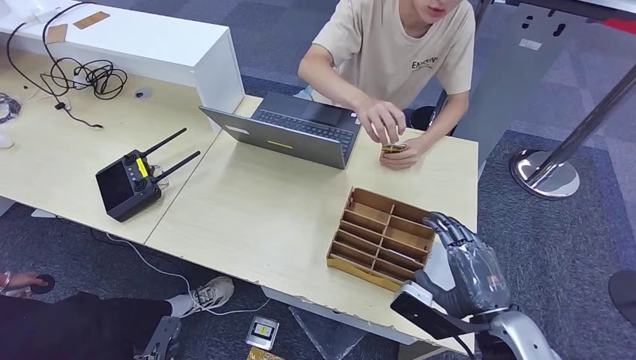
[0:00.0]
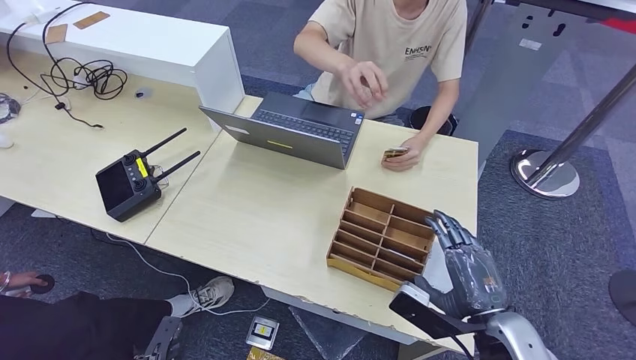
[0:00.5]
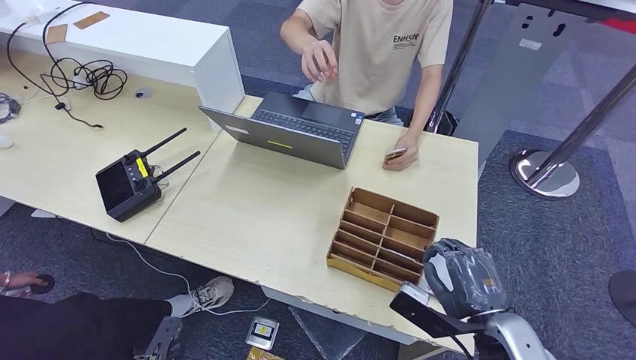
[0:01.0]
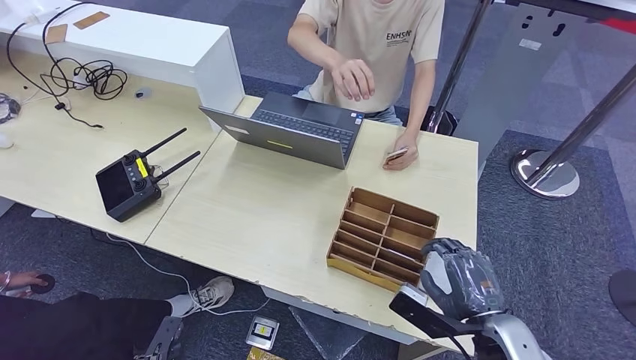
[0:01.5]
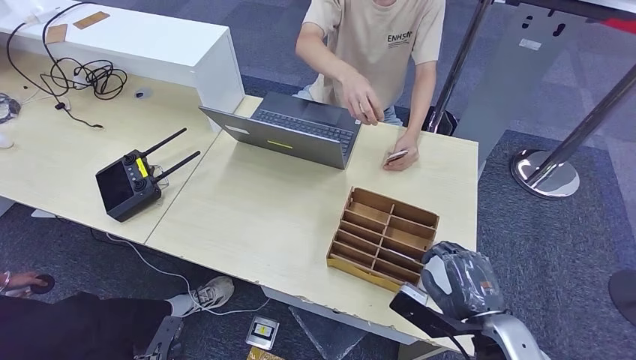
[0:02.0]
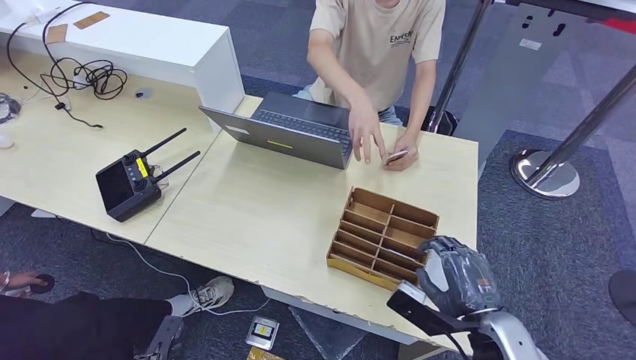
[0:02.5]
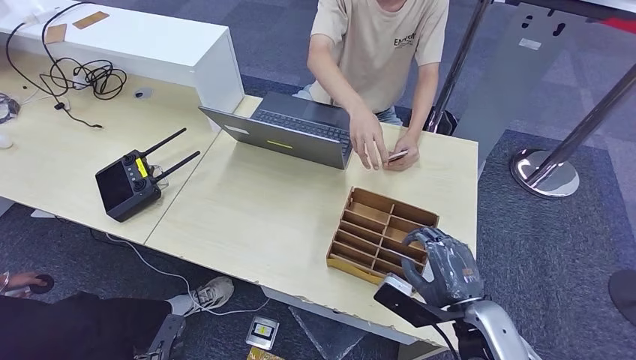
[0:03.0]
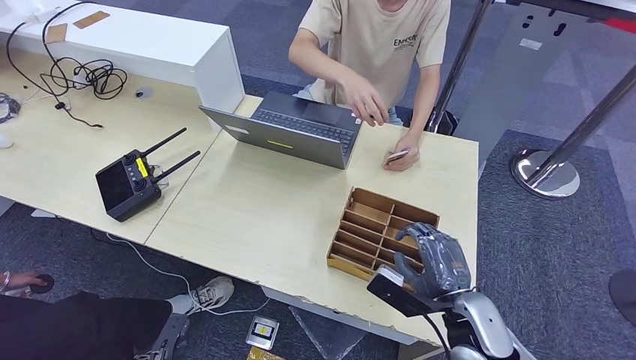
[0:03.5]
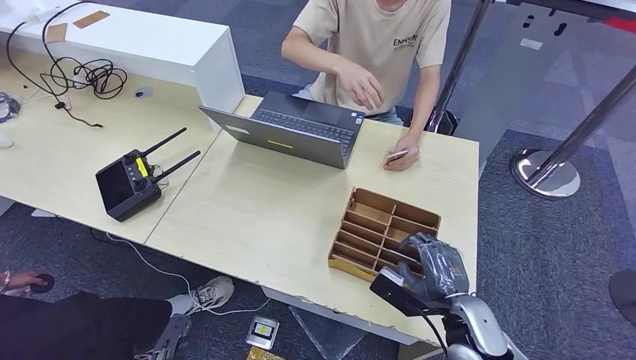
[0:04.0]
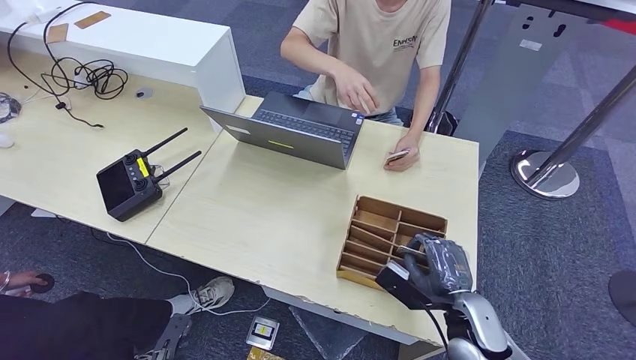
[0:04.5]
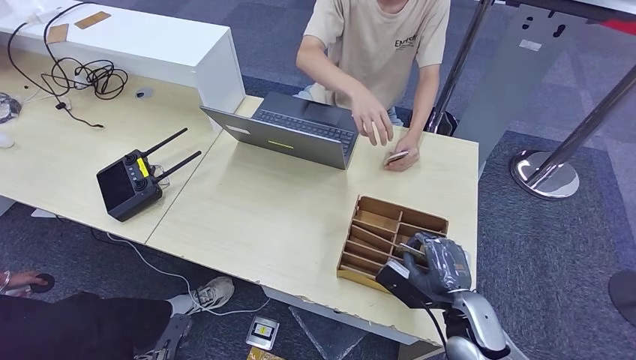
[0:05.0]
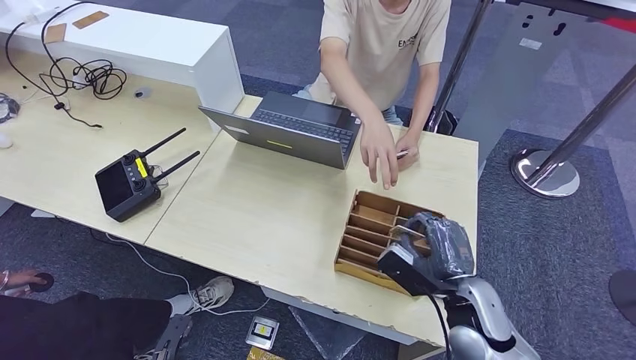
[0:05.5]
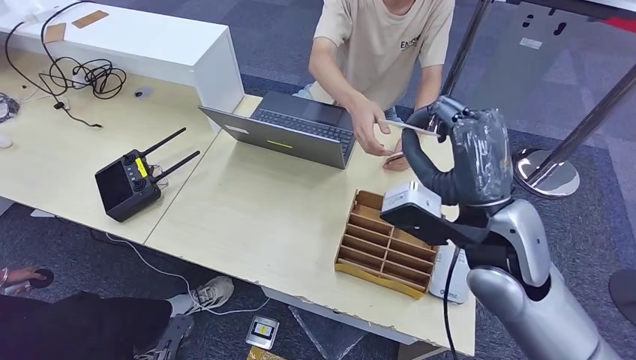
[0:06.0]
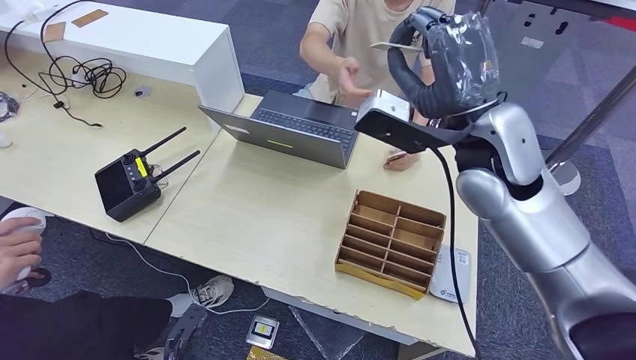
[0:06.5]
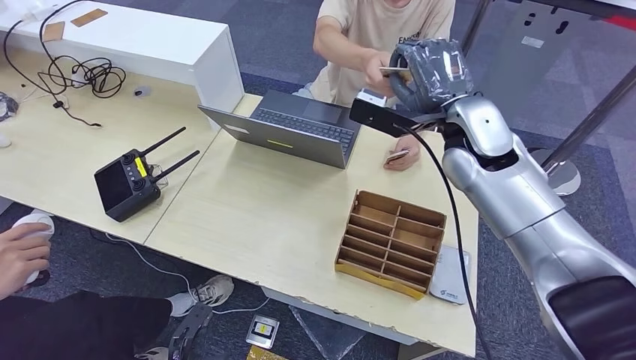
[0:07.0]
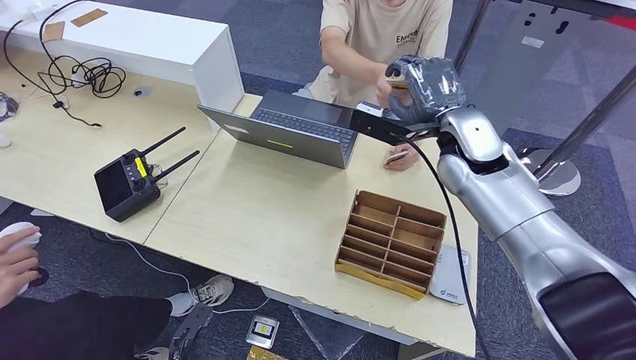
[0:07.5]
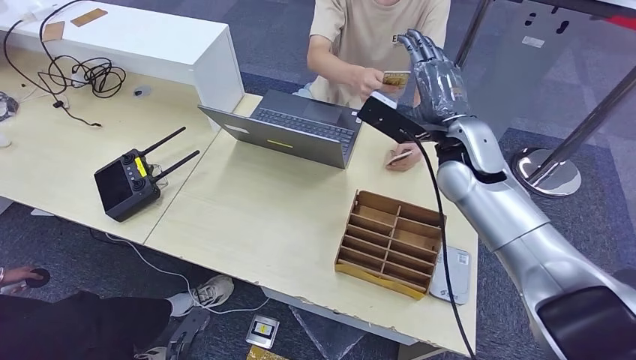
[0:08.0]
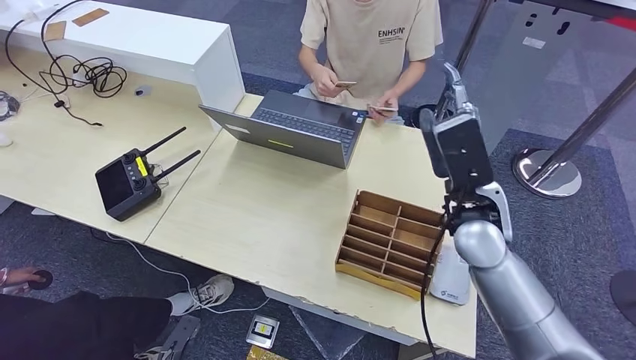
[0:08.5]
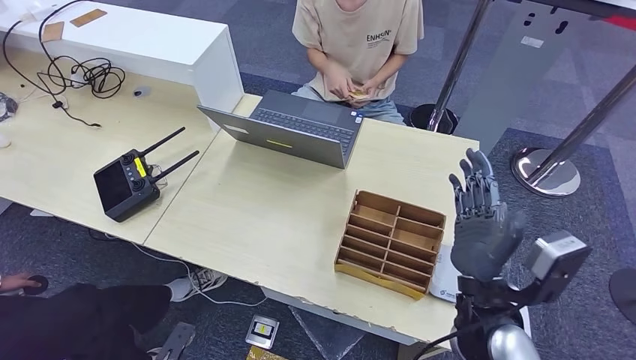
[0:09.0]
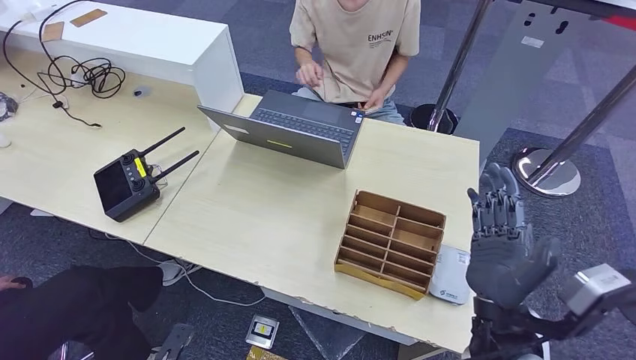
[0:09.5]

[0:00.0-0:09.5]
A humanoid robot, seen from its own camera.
Step, 0:00.0 to 0:06.0: Pick up the room key from the key card box.
Step, 0:06.5 to 0:09.5: Hand the room key to the person.
0:00.0 to 0:02.0: There are only small adjustments of the hands.
0:02.0 to 0:04.0: The right hand shifts by roughly 5 cm.
0:04.0 to 0:05.5: The hands make only small movements.
